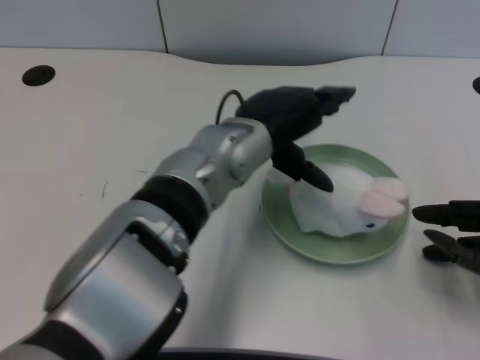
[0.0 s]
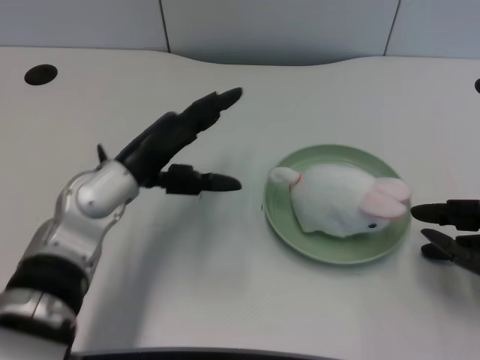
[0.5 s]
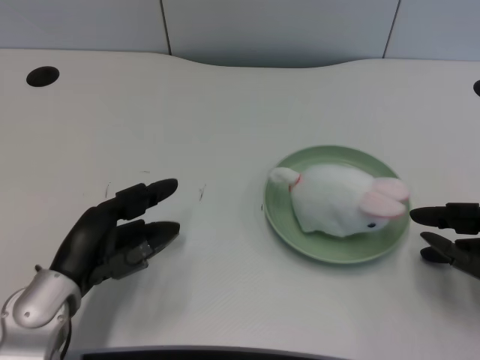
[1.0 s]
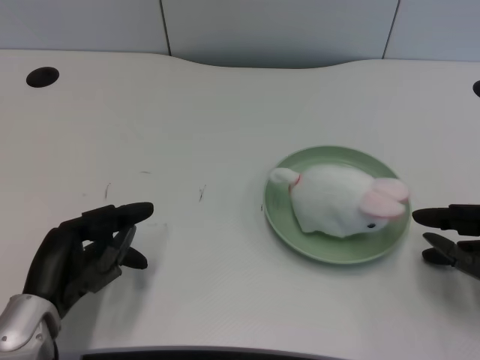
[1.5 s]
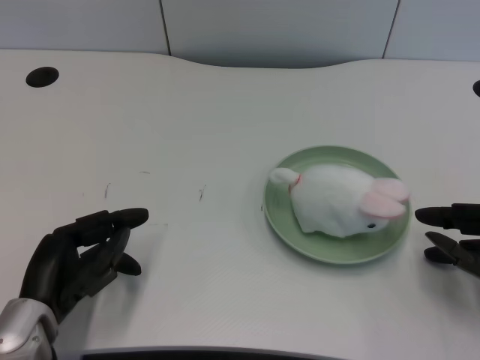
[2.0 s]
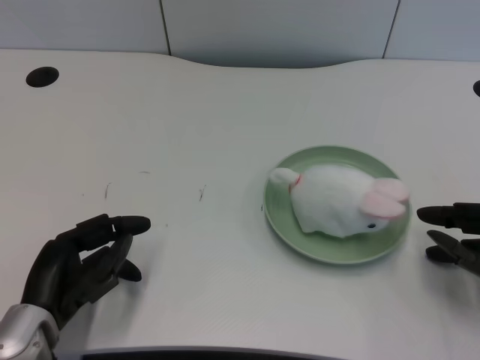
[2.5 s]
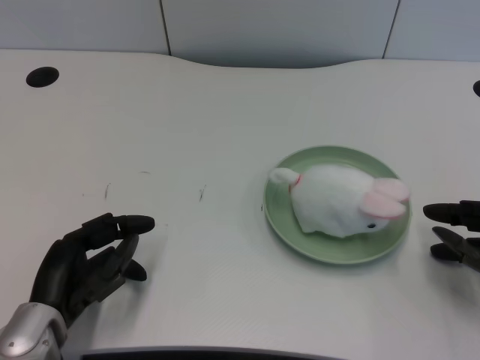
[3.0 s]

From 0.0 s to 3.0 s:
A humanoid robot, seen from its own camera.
Task of the whole recording: pick up the rabbit doll from the table and place it on the plate.
From 0.0 s to 1.5 s: The left hand heads to the left, downward and backward, covering some 25 cm.
From 1.5 s to 3.0 s: There are only small adjustments of the hands.

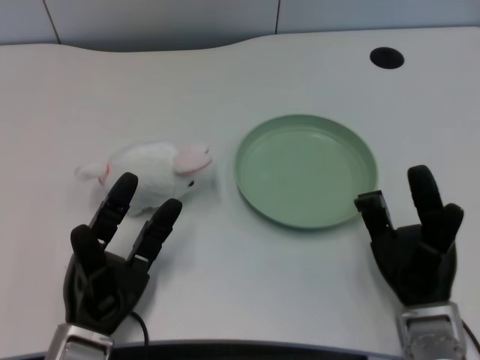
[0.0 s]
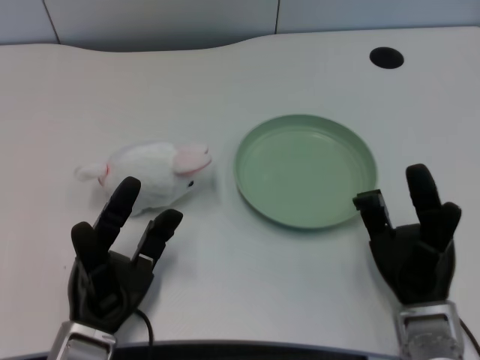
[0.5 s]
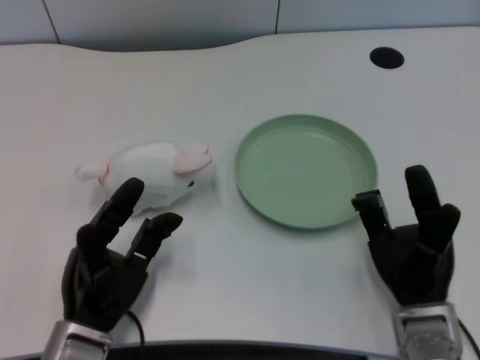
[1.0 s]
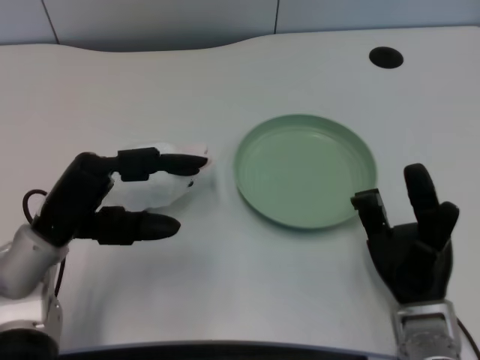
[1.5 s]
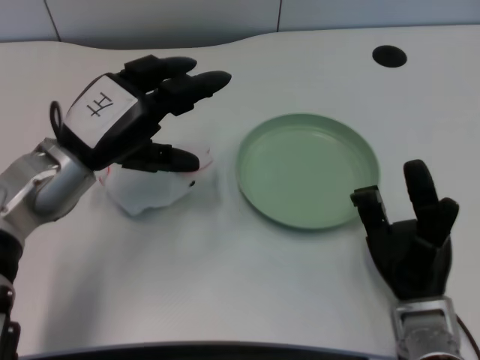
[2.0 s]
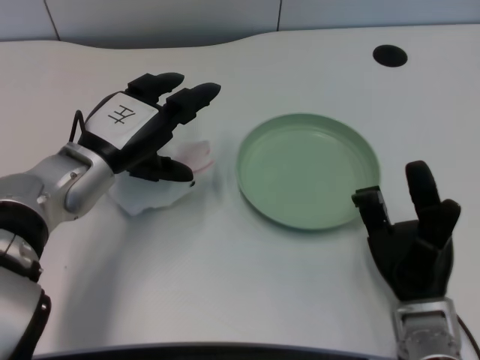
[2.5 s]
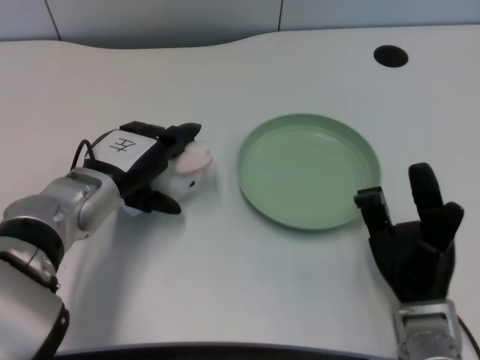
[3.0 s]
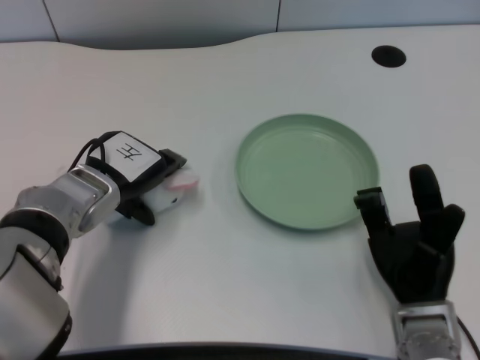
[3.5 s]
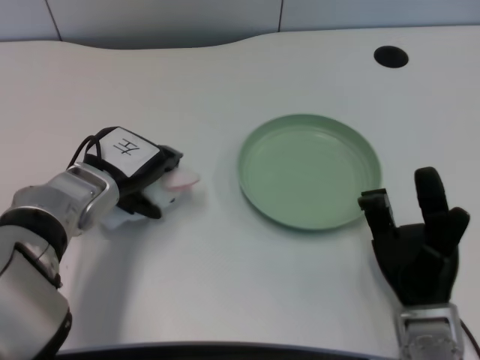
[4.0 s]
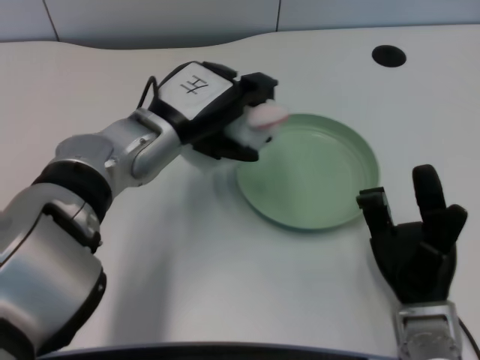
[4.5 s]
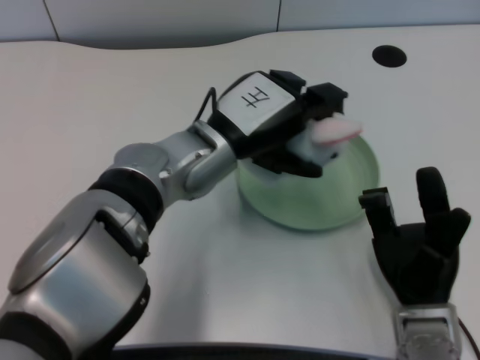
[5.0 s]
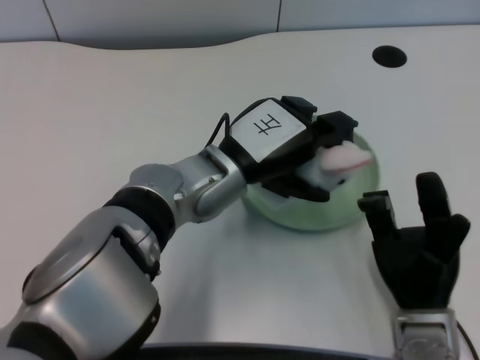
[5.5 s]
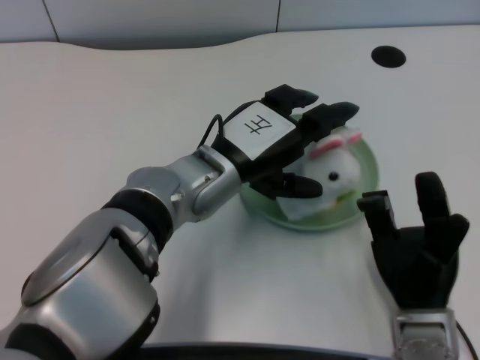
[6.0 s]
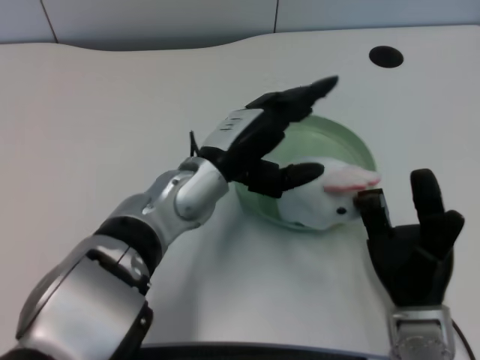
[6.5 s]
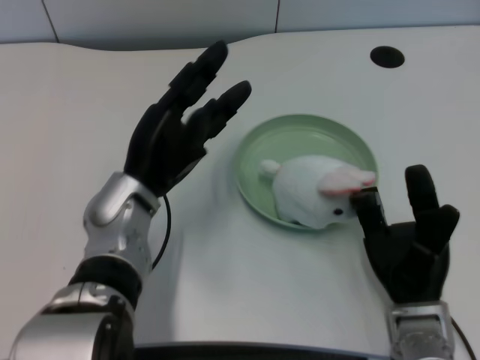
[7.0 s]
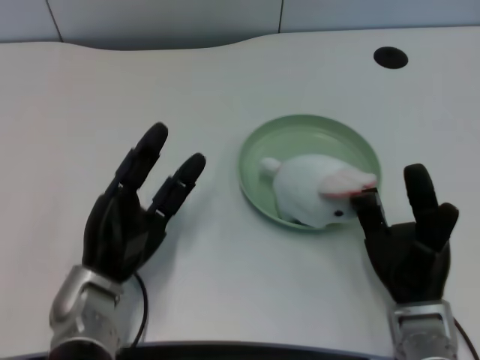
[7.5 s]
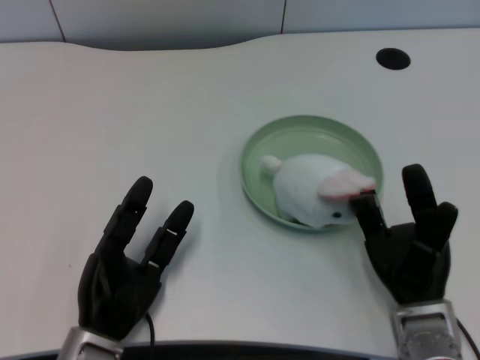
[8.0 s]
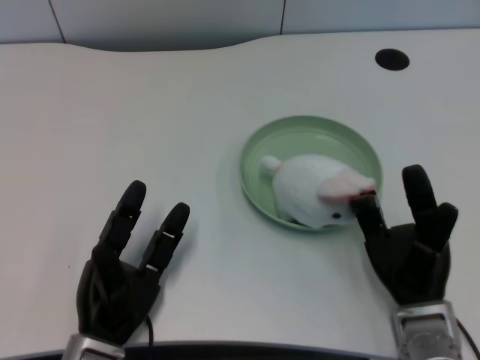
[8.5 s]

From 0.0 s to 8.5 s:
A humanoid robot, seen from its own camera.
Task of the whole recording: pick up the rabbit doll from the table and place it on the plate.
Step, from 1.0 s to 4.0 s: Grasp the rabbit doll with the left gripper.
Step, from 4.5 s to 6.0 s: Place the rabbit doll into the plate with the left gripper.
From 2.0 s to 4.0 s: The left hand ends up about 5 cm from where it was.
From 4.0 s to 6.5 s: The left hand shifts some 10 cm to the right.
From 6.5 s to 8.5 s: The left hand shifts some 20 cm downward, backward and to the left.
